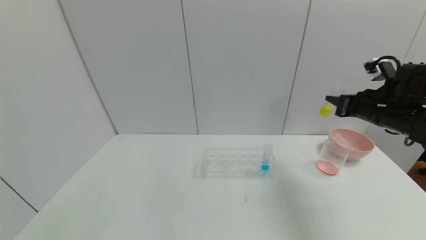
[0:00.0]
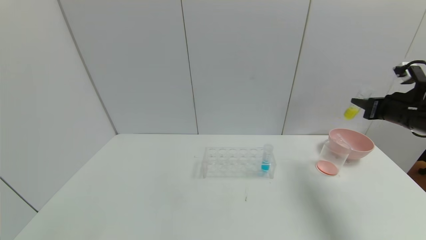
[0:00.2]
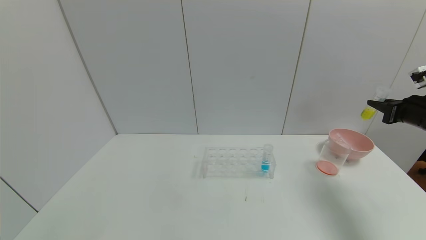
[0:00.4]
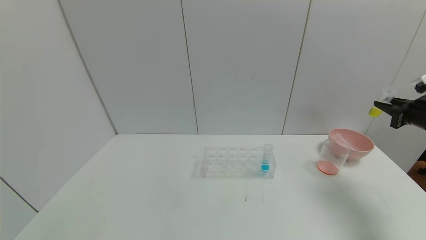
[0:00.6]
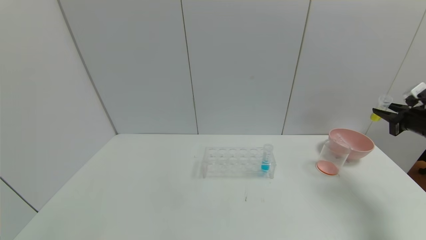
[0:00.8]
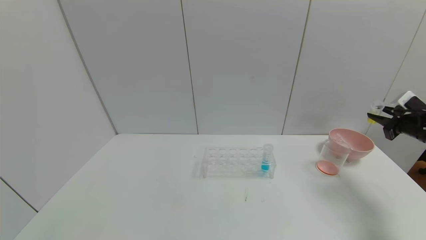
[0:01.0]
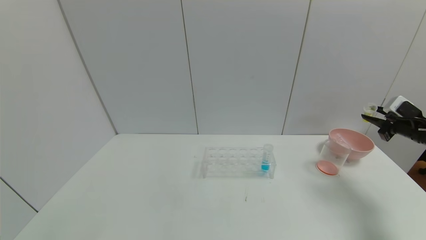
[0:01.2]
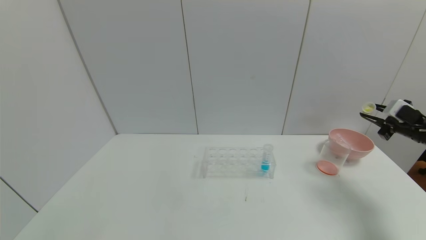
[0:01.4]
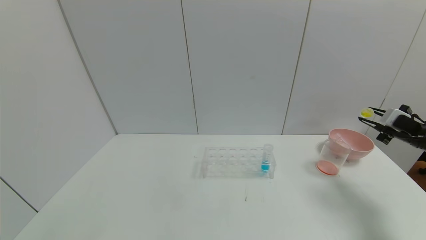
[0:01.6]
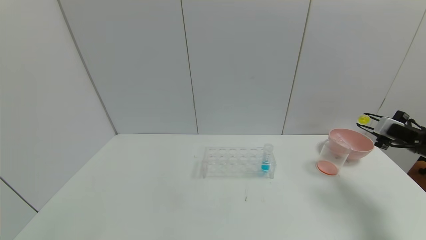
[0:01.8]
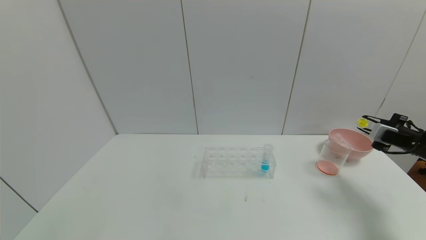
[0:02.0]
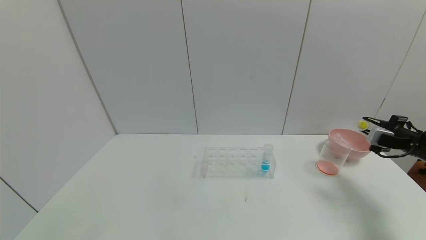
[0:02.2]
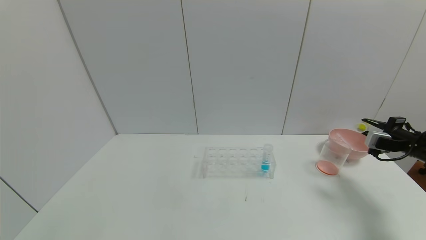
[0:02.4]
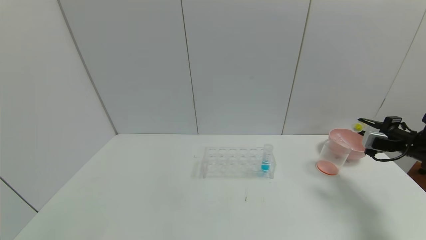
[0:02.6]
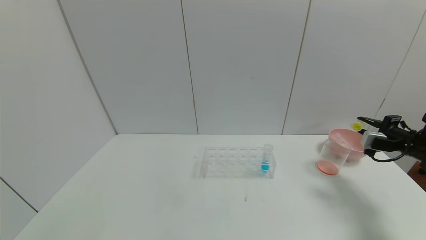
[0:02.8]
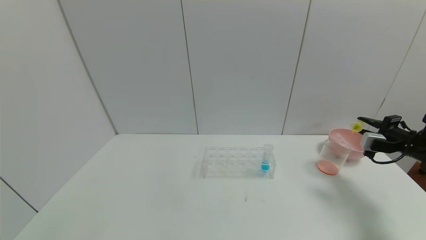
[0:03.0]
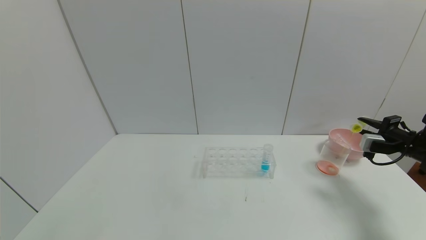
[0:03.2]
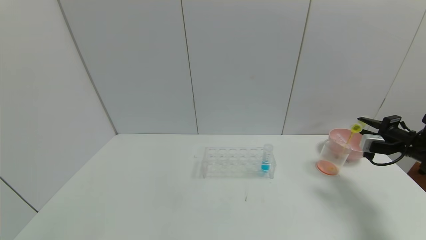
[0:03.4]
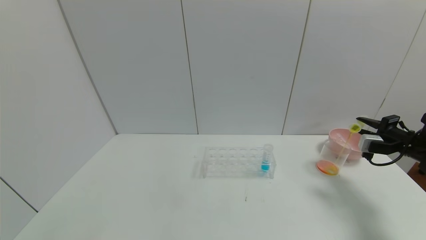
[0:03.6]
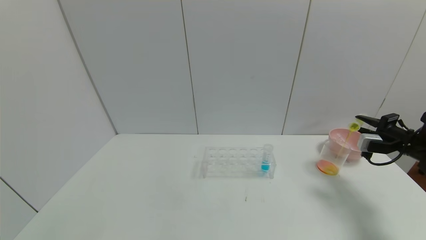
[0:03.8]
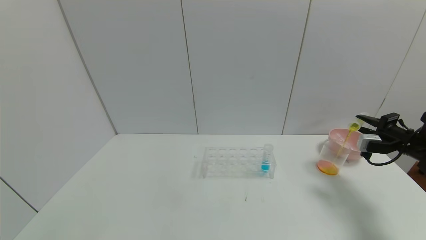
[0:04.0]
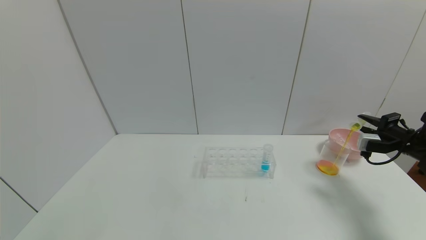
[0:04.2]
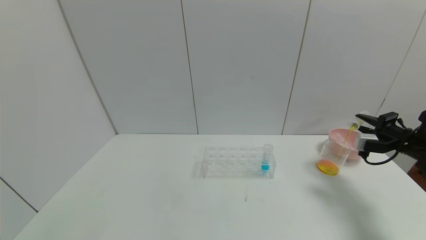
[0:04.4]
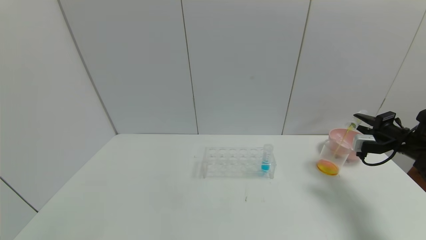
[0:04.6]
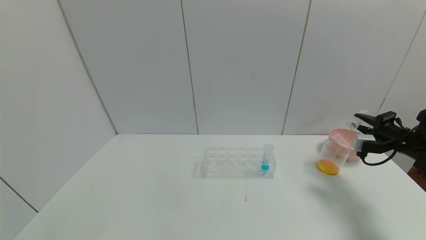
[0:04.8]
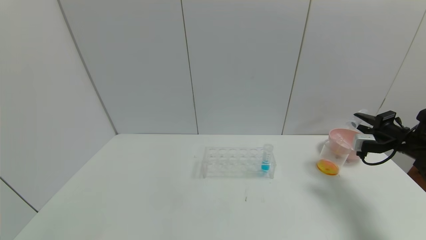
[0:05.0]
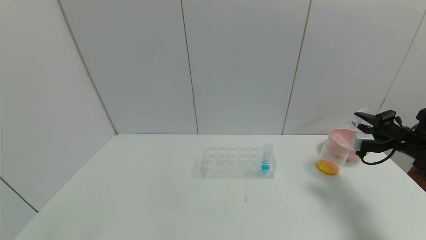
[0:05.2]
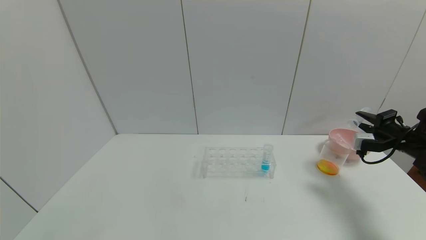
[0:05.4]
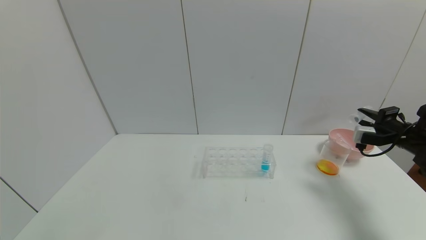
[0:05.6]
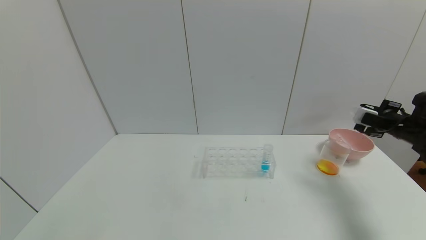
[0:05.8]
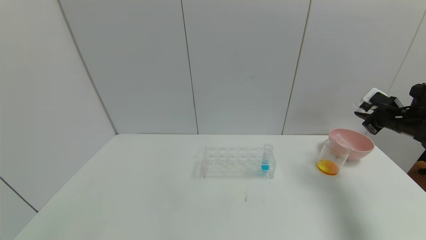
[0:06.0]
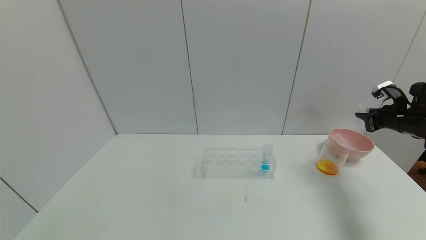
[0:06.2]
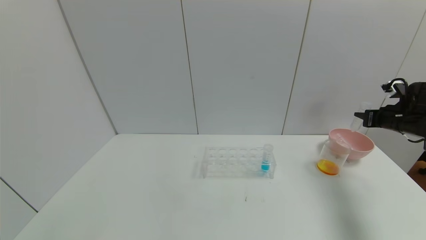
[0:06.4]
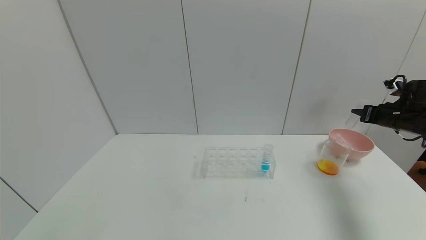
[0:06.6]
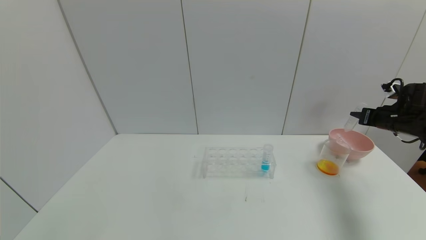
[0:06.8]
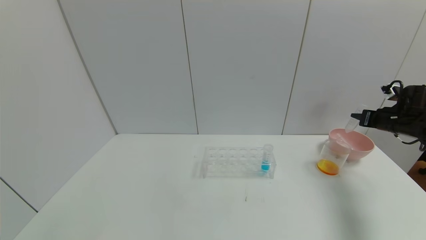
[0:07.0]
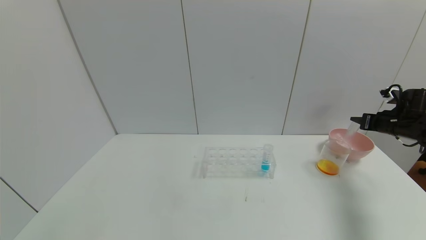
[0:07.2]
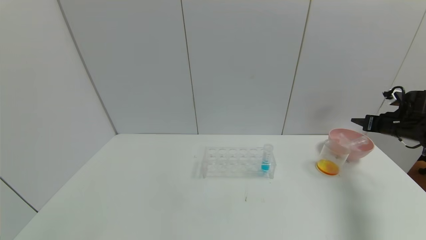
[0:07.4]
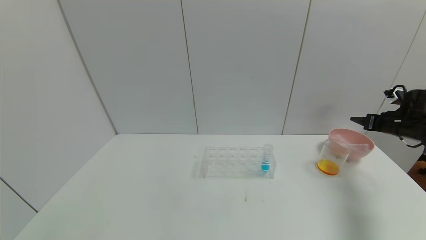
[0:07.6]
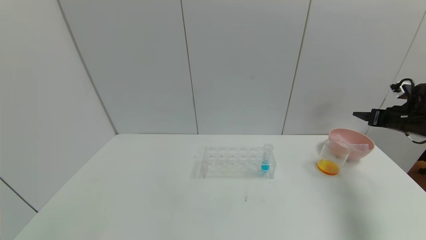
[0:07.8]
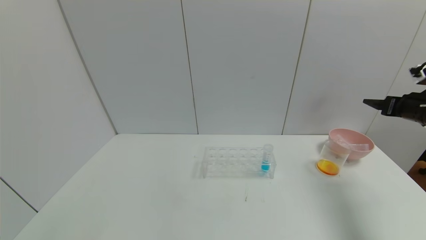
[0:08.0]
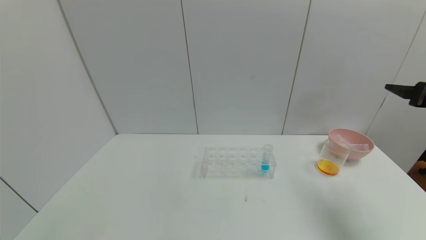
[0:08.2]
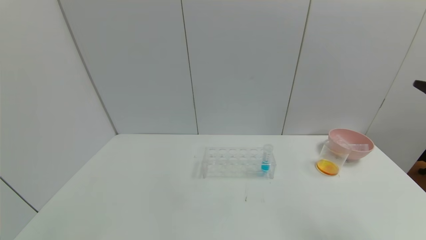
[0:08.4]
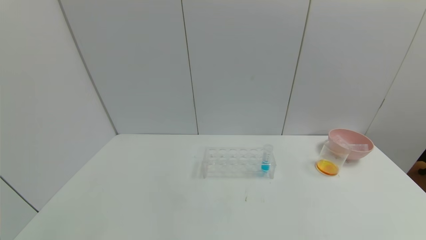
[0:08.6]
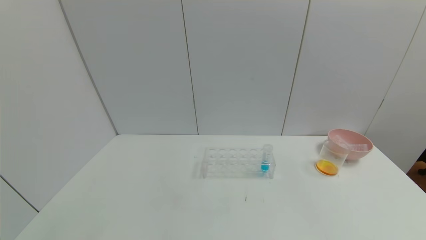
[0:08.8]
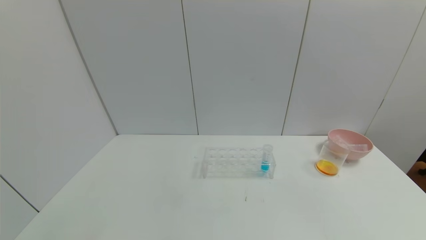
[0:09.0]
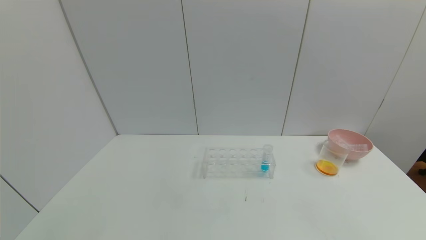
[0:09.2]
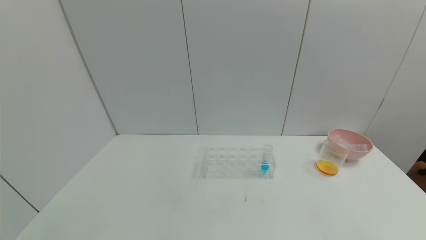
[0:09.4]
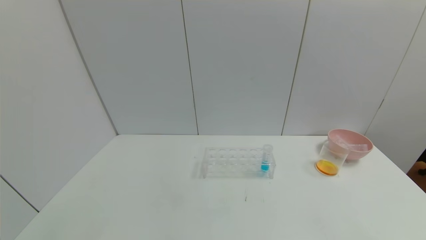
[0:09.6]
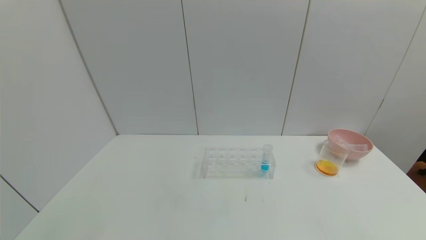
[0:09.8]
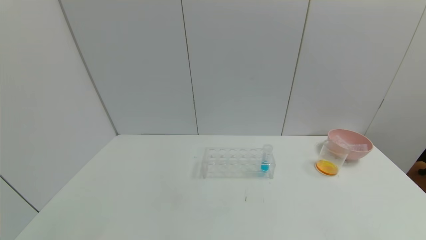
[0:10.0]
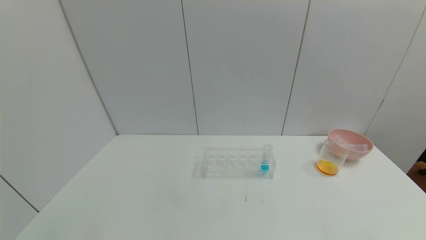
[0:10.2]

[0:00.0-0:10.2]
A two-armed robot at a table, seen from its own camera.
Task of the whole recording: pick up the test tube with yellow pigment and the test tube with red pigment by grippers and pour them into the beaker.
Step, 0:00.0 to 0:06.6: Pour the yellow reagent into the graduated cylinder with right gripper.
Step, 0:06.8 to 0:08.4: Place the test tube into the bowl with right gripper.
0:00.0 to 0:01.4: The right gripper moves to the right and downward, approximately 15 cm.
0:03.0 to 0:04.4: The grippers move only a little.
0:07.2 to 0:08.8: The right gripper moves backward, roughly 35 cm, and opens its fingers.
